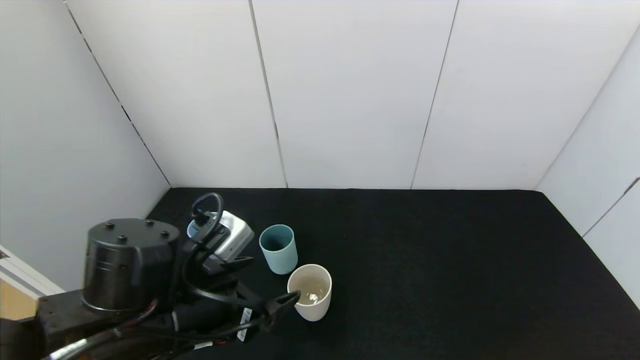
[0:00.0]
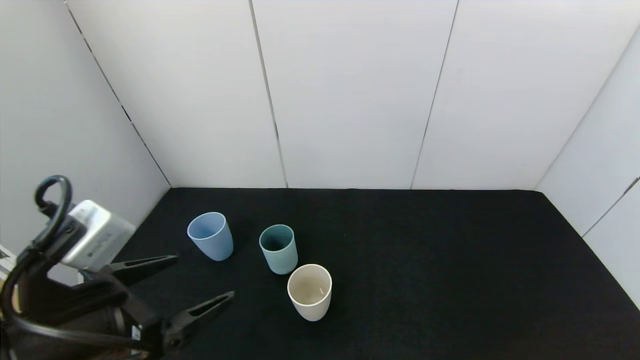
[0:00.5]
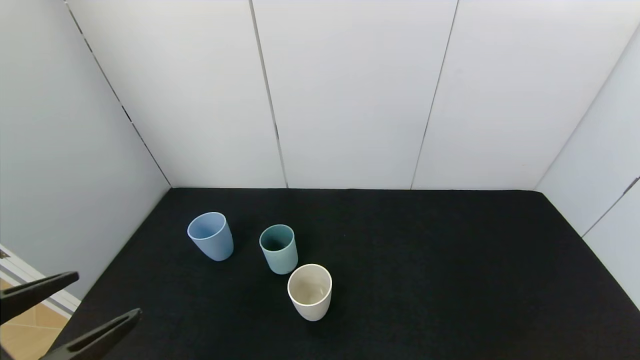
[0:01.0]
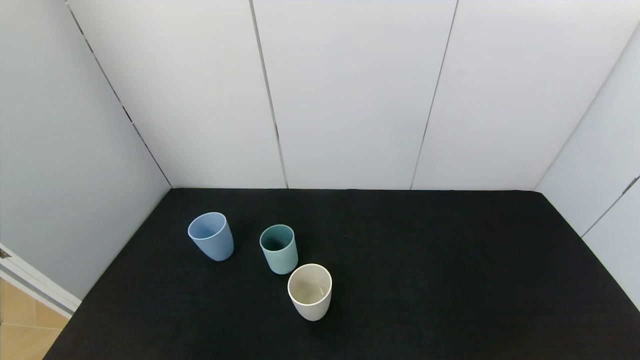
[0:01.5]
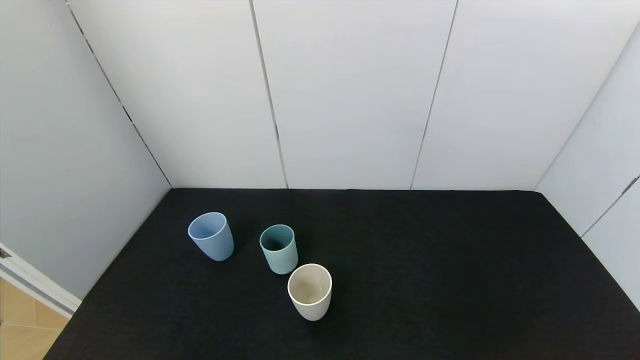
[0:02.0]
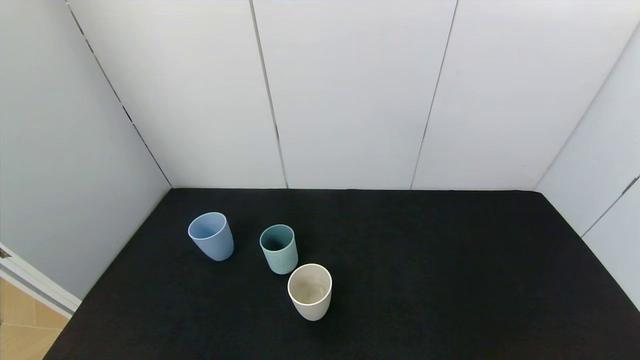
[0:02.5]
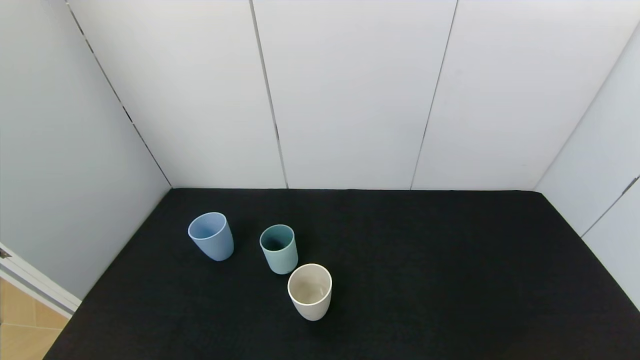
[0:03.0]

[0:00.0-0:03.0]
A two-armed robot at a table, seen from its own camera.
Task of the whole recording: use the gripper to pour the water into the other two cups on black table.
0:00.0 to 0:01.5: The left gripper moves backward and to the left, roughly 25 cm.
